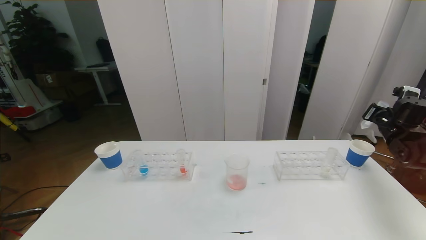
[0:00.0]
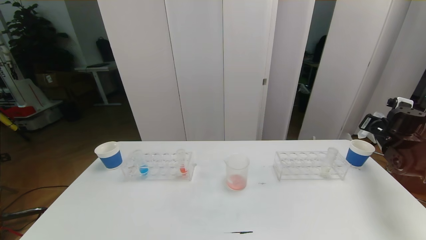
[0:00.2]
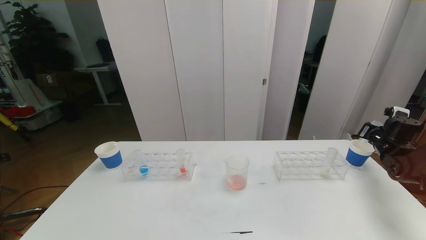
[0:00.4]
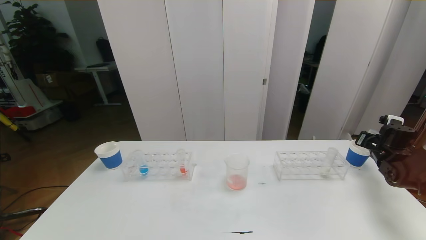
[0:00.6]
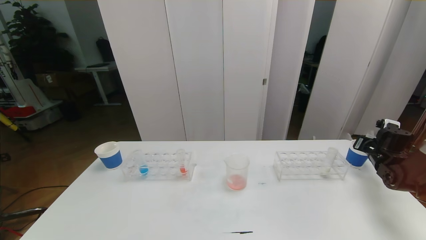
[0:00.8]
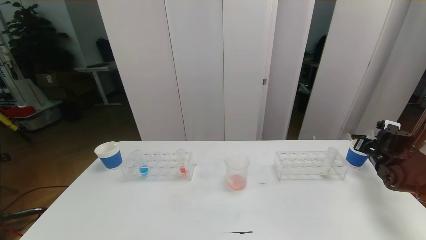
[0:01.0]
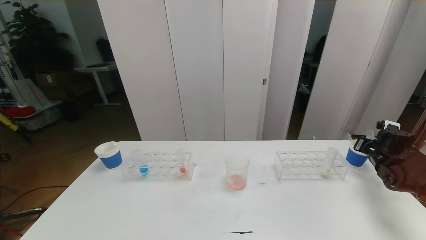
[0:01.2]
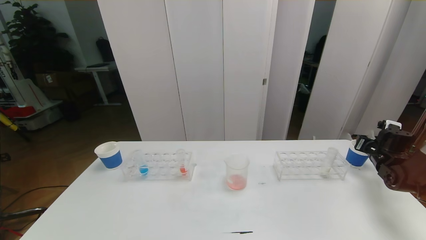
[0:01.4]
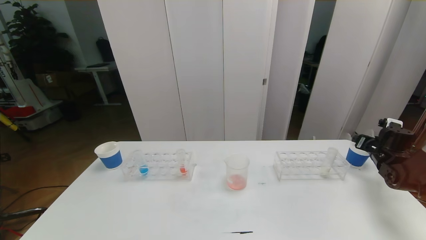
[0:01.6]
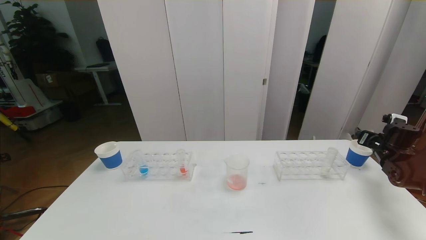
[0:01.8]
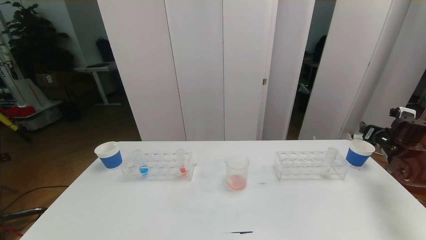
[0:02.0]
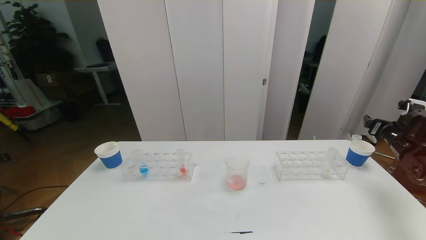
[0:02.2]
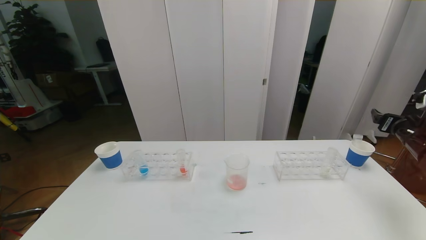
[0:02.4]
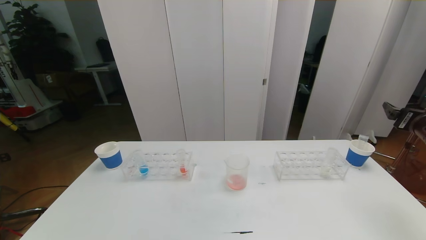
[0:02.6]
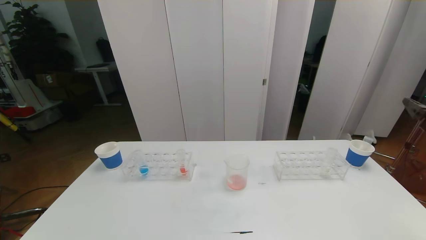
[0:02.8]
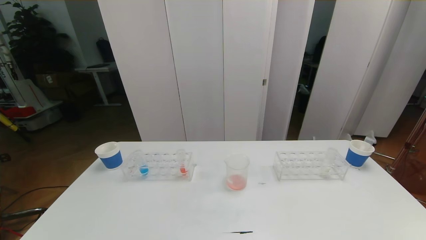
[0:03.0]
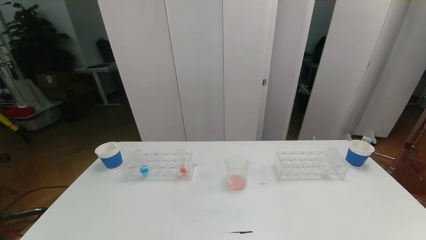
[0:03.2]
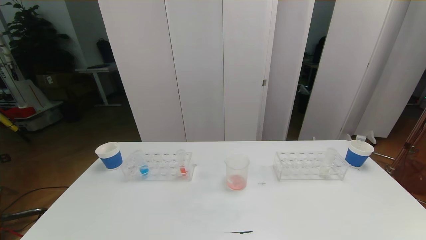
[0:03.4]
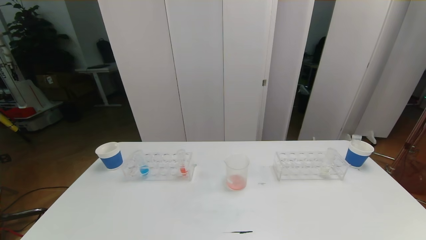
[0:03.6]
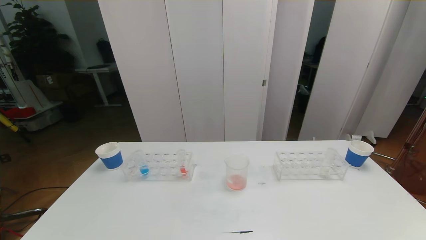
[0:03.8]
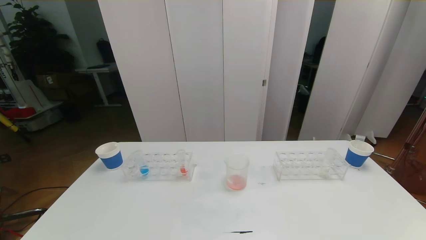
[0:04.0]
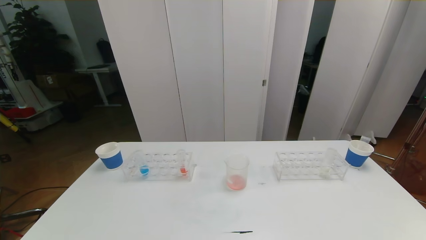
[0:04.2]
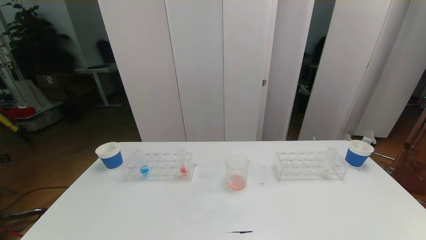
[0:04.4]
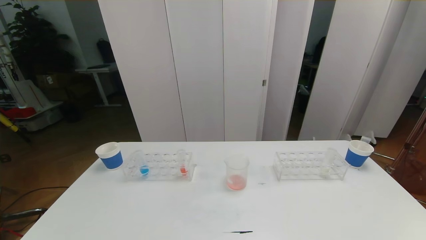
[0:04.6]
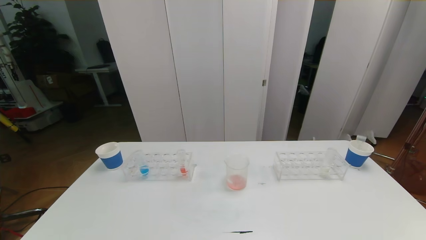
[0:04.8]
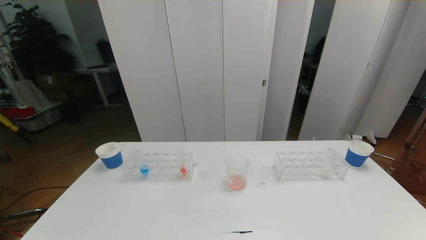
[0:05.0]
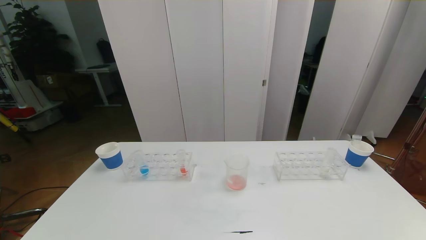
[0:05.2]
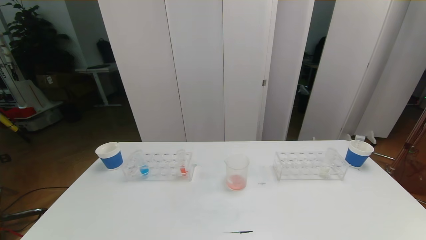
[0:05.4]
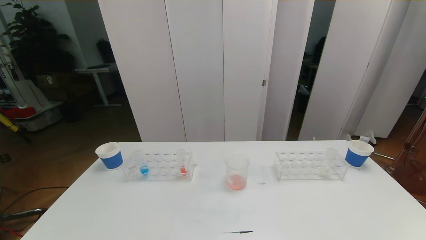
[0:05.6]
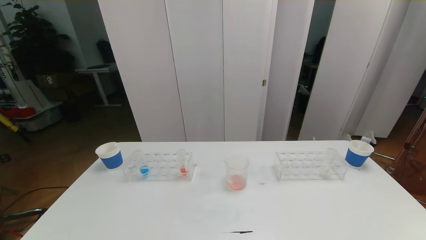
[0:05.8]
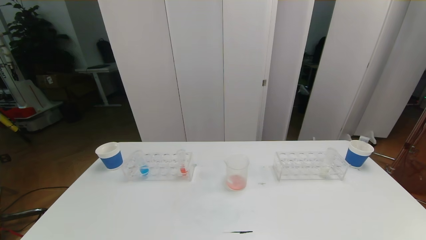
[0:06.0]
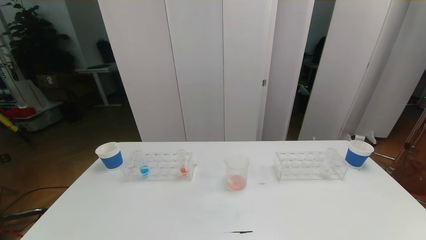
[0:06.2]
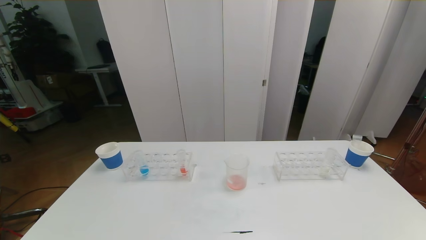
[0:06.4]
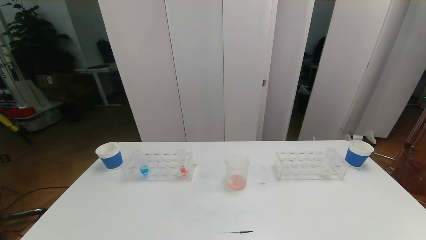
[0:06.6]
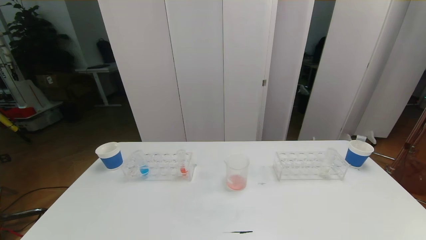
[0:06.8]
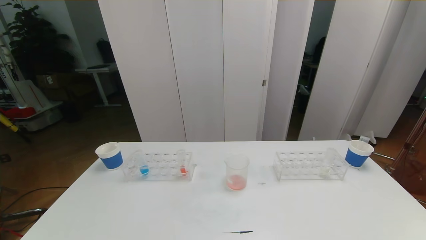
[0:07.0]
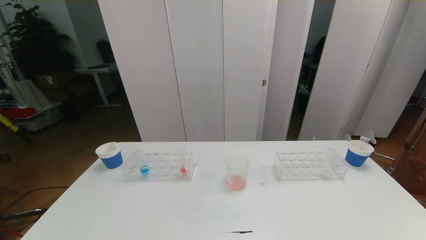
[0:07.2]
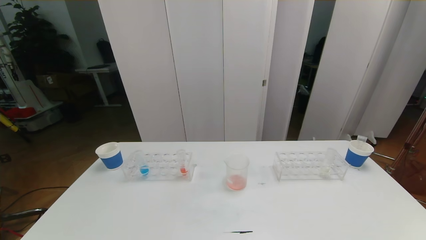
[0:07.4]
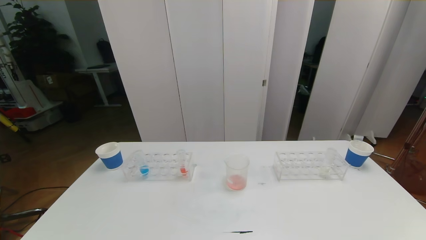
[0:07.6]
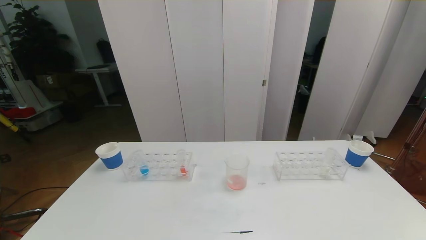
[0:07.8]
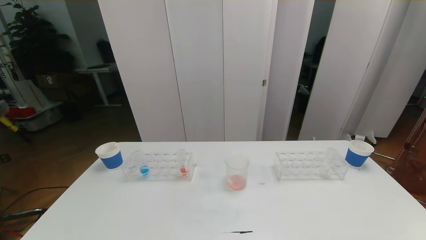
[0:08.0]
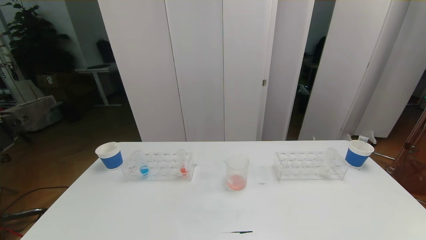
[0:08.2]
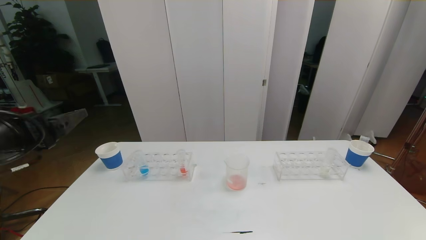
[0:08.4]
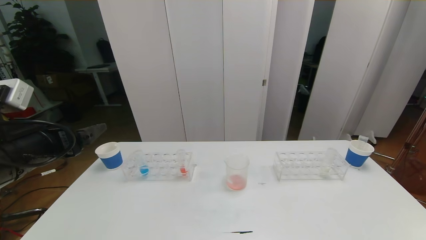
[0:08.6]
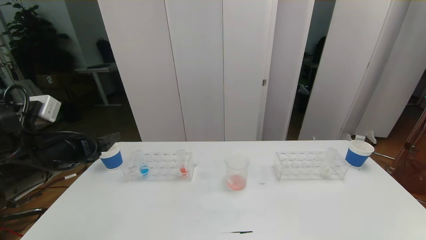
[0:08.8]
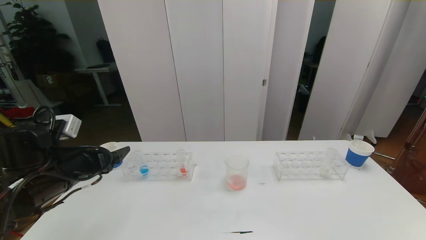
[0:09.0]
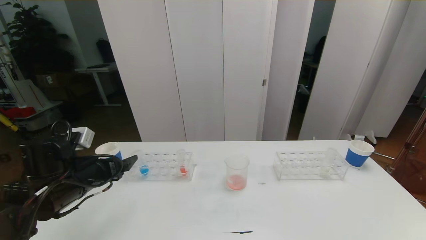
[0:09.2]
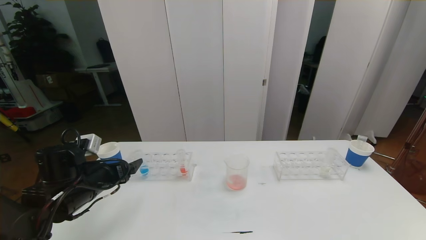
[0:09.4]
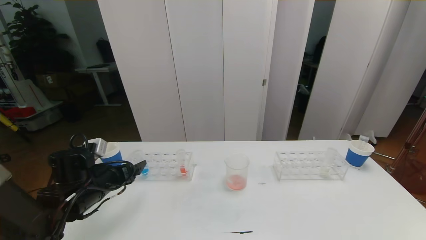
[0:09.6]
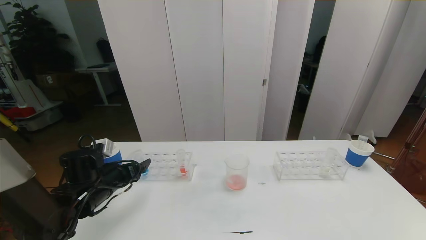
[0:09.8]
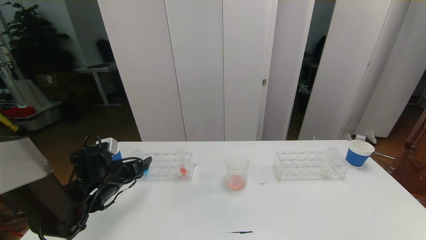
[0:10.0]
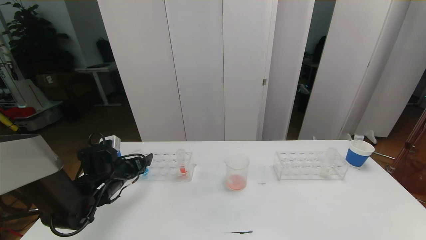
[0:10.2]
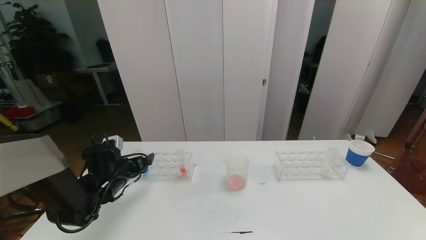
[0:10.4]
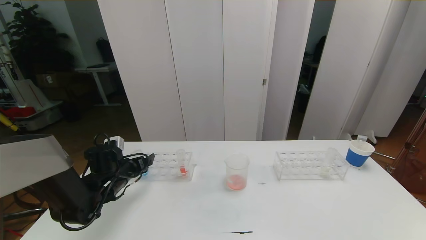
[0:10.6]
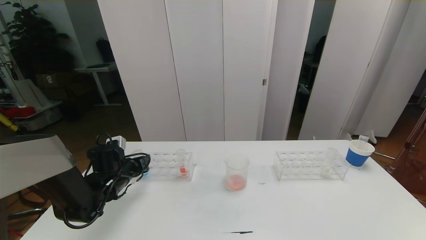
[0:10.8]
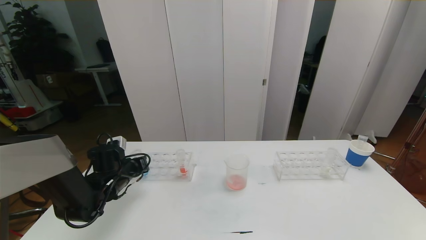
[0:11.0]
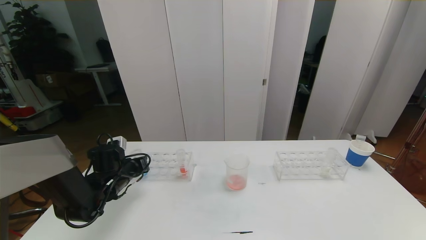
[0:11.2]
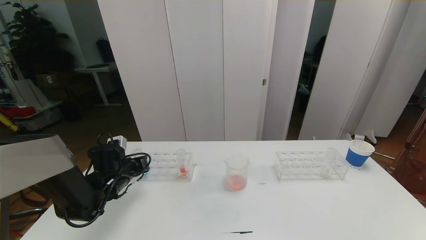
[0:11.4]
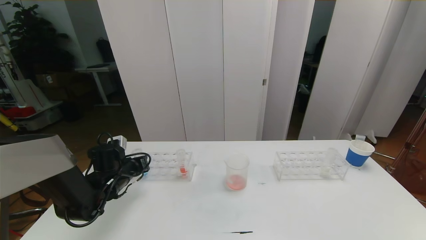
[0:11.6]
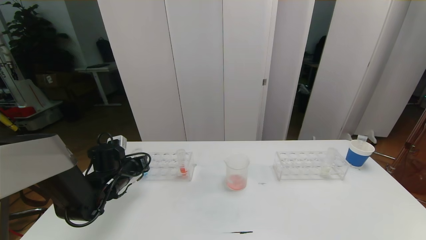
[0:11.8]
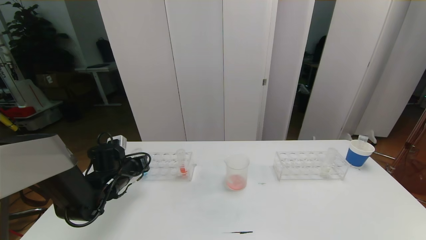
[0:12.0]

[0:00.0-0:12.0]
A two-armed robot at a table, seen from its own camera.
Task of the whole recording: pick up the test tube with red pigment the test tube with blue pigment and the test tube with white pigment by grippers and pour them into the beaker.
Step, 0:00.0 to 0:06.0: Pour the red reagent into the graduated cylinder and place the test tube into the paper cup.
0:00.0 to 0:01.6: The right gripper moves downward, some 10 cm, and opens its fingers.
0:01.6 to 0:03.0: The right gripper is displaced backward and upward by approximately 30 cm.
0:04.4 to 0:06.0: Both grippers stay about where they are.
0:07.6 to 0:09.0: The left gripper goes approximately 25 cm forward.
0:09.0 to 0:10.4: The left gripper is displaced downward and forward by roughly 15 cm.
0:10.4 to 0:12.0: The left gripper closes.

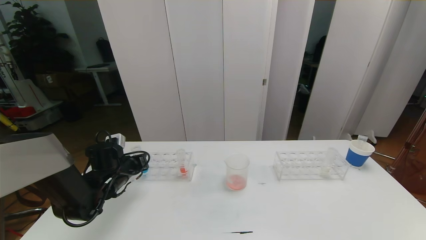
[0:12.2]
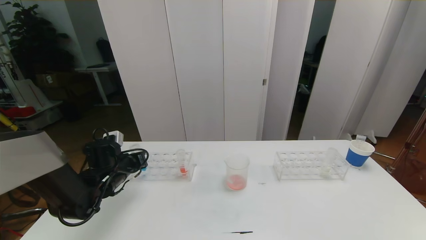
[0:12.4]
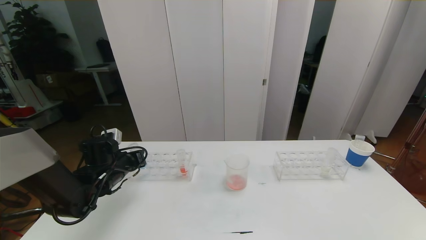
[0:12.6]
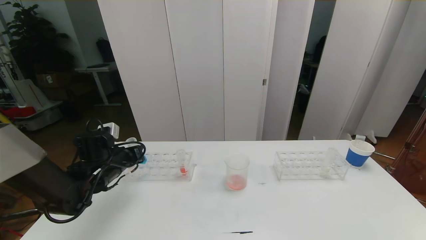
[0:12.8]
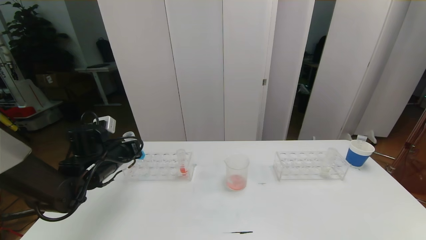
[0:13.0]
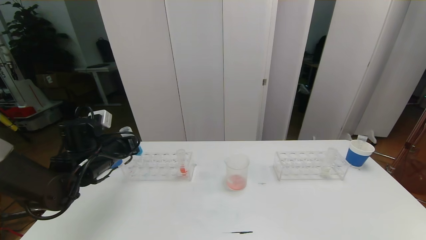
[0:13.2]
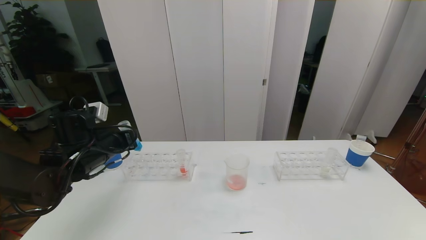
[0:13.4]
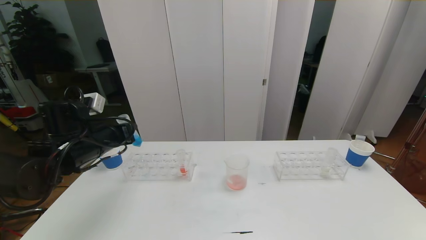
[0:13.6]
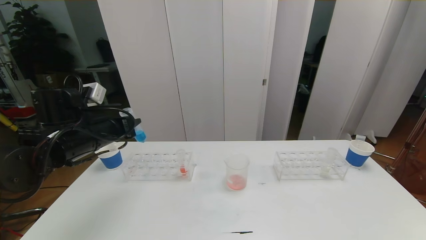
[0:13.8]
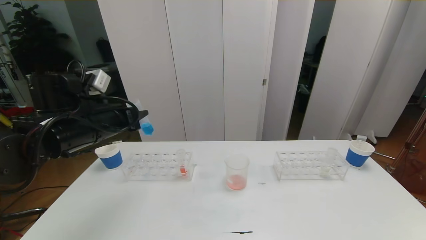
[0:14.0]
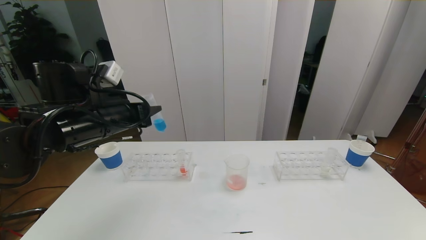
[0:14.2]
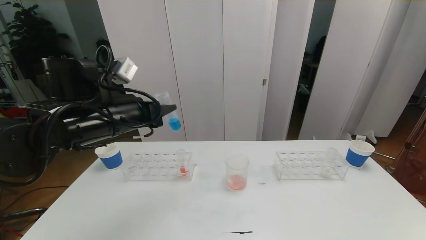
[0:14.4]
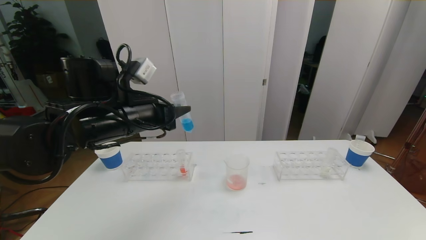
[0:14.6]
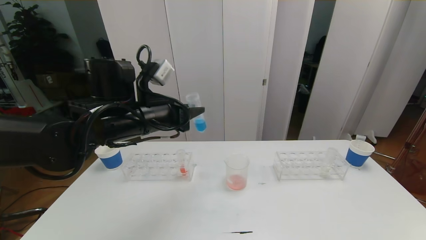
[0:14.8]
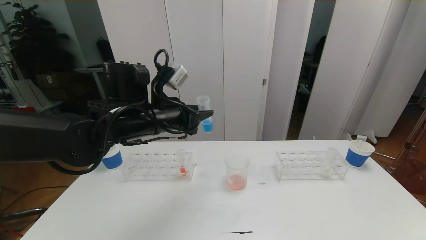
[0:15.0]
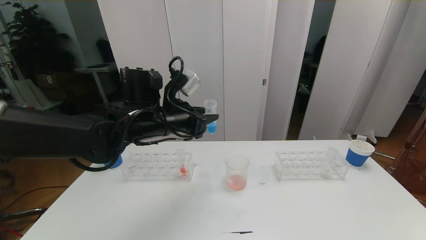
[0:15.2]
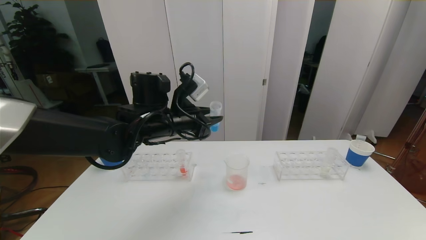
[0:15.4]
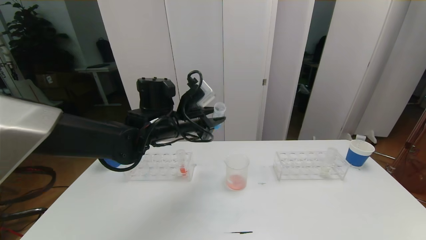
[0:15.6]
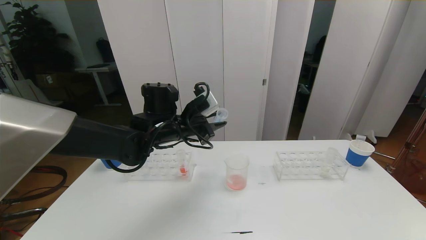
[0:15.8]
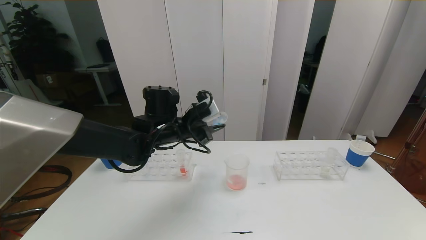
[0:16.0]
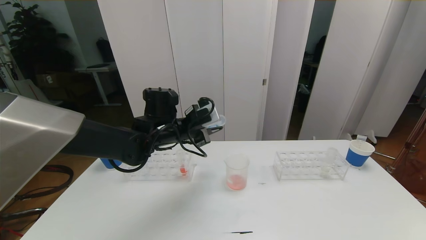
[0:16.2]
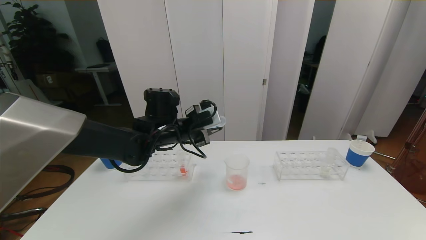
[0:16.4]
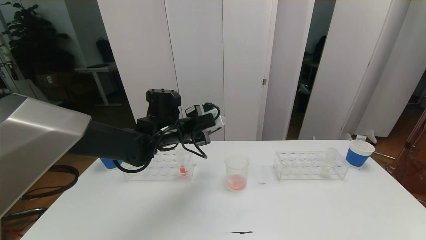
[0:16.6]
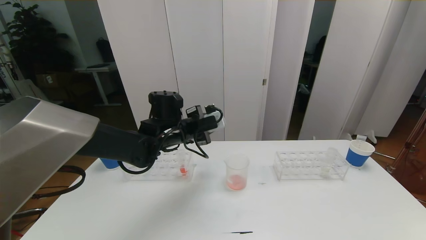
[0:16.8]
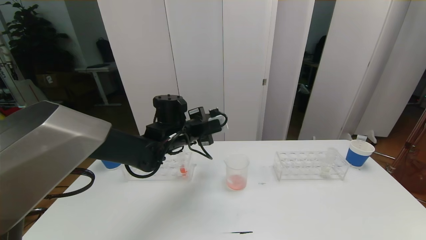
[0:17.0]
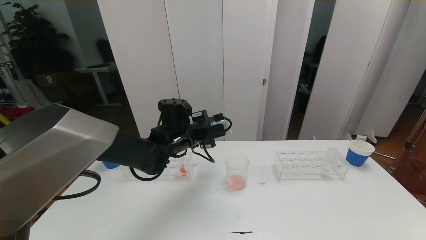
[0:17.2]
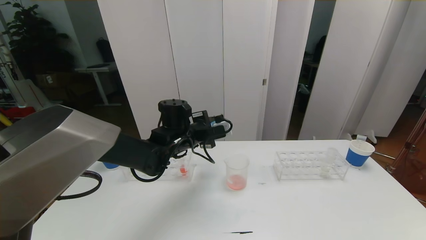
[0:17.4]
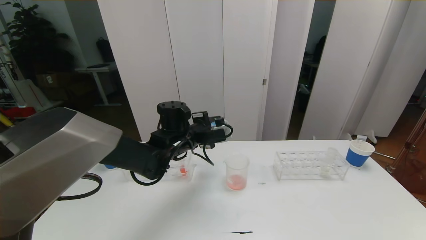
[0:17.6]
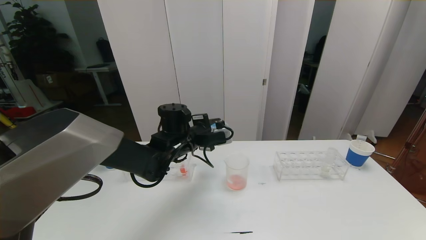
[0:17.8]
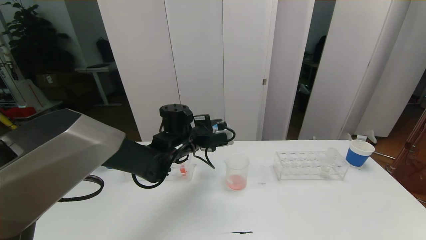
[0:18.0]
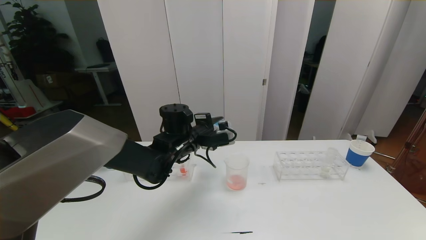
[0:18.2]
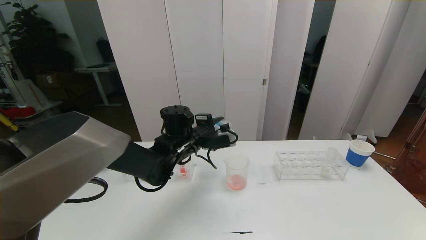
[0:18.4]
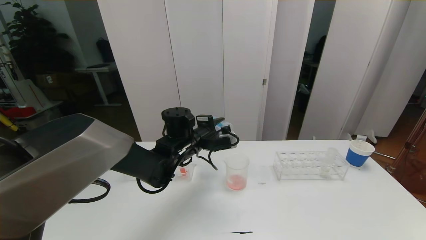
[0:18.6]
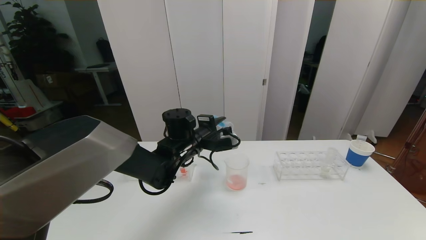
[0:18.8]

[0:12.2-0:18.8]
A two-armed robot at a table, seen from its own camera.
Task of the whole recording: pick up the test tube with red pigment the test tube with blue pigment and the test tube with white pigment by grippers and pour them into the beaker.
0:12.2 to 0:13.8: The left gripper travels upward by some 15 cm.
0:13.8 to 0:15.4: The left gripper shifts roughly 15 cm to the right.
0:15.4 to 0:17.2: The left gripper heads downward, covering some 5 cm.
0:17.2 to 0:18.8: There are only small adjustments of the grippers.
